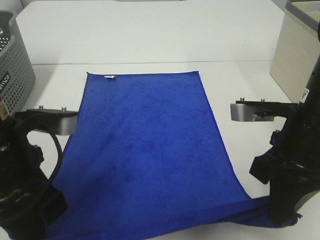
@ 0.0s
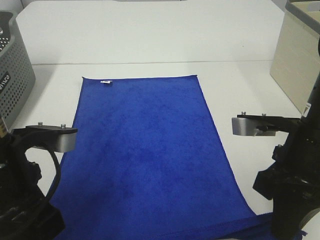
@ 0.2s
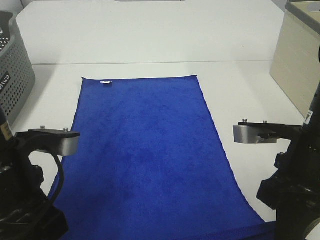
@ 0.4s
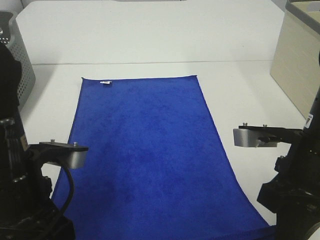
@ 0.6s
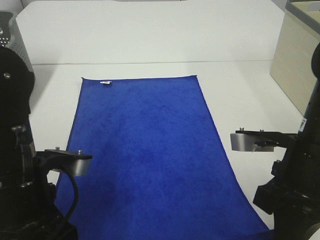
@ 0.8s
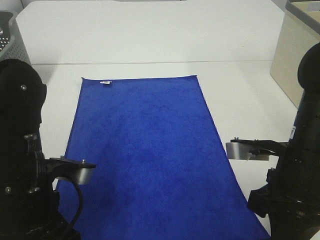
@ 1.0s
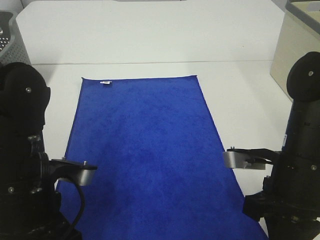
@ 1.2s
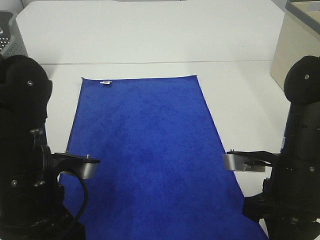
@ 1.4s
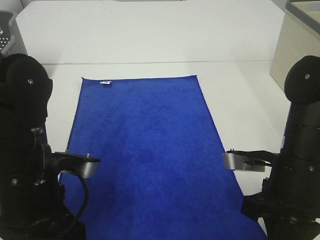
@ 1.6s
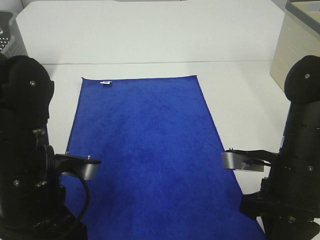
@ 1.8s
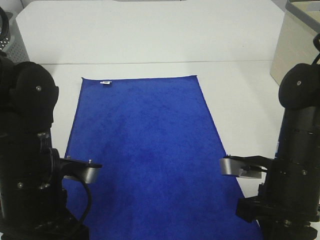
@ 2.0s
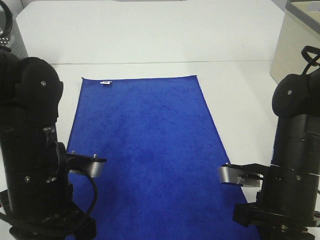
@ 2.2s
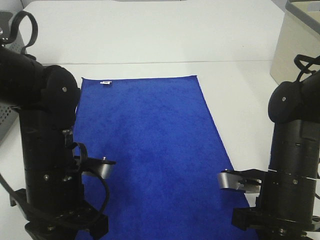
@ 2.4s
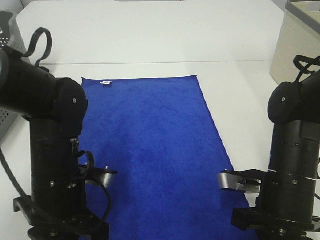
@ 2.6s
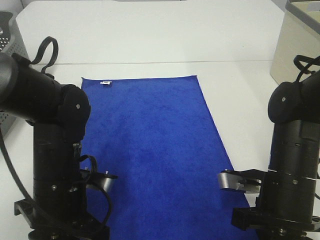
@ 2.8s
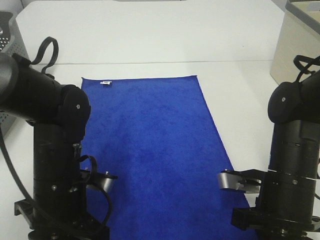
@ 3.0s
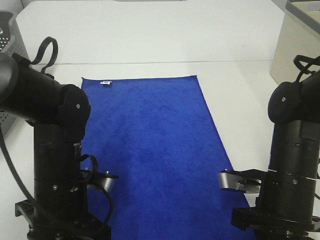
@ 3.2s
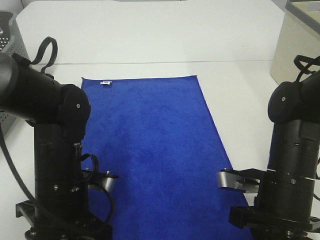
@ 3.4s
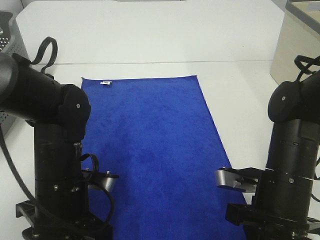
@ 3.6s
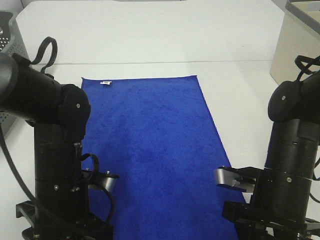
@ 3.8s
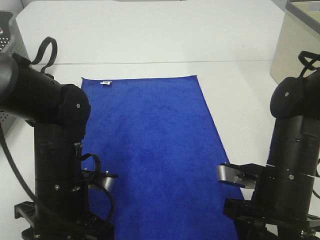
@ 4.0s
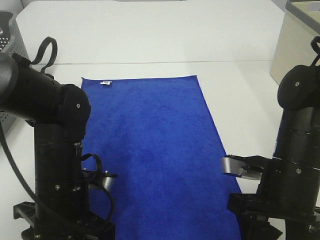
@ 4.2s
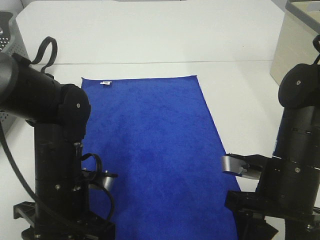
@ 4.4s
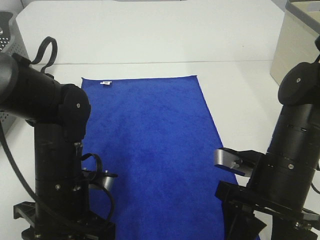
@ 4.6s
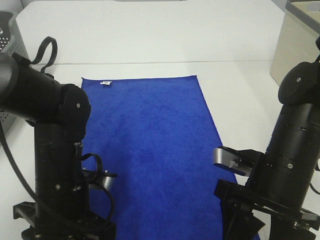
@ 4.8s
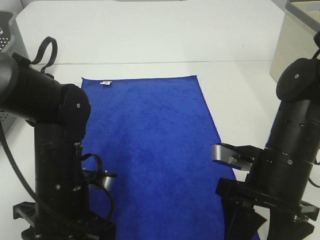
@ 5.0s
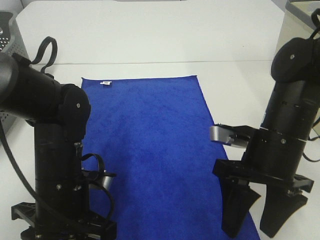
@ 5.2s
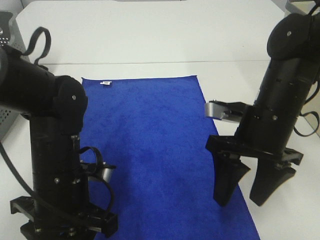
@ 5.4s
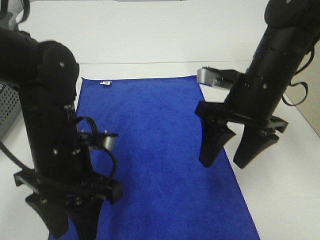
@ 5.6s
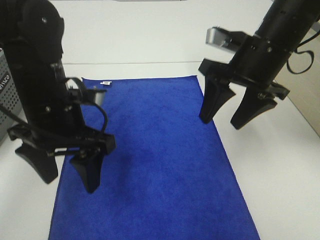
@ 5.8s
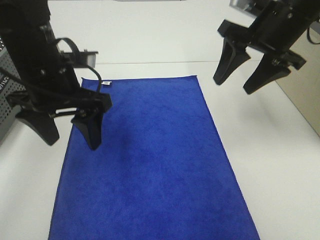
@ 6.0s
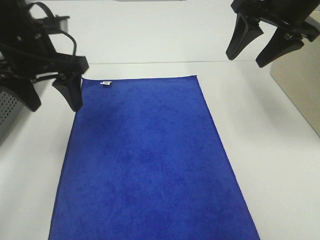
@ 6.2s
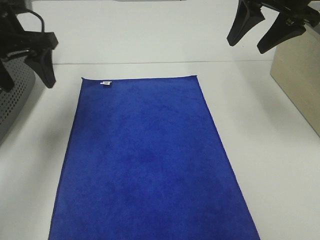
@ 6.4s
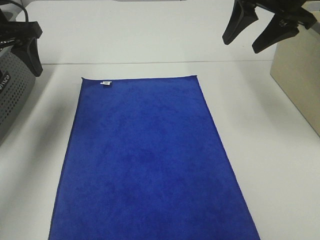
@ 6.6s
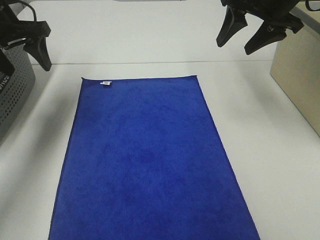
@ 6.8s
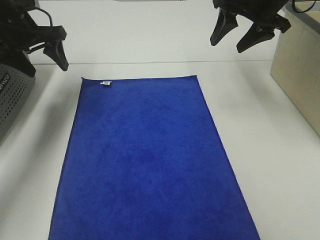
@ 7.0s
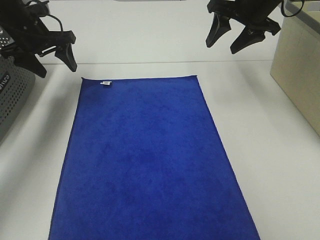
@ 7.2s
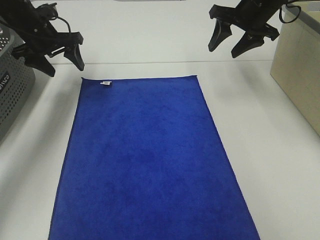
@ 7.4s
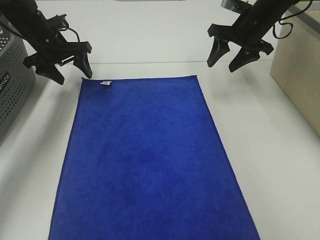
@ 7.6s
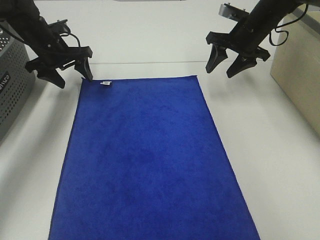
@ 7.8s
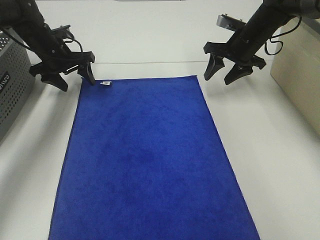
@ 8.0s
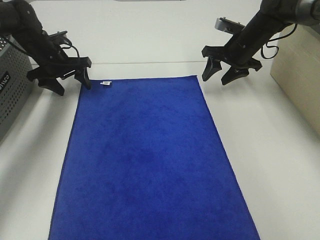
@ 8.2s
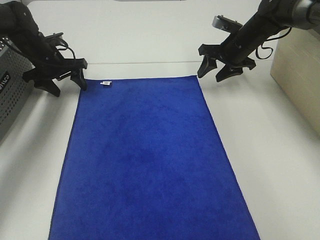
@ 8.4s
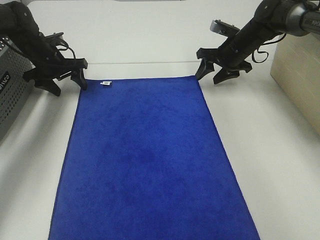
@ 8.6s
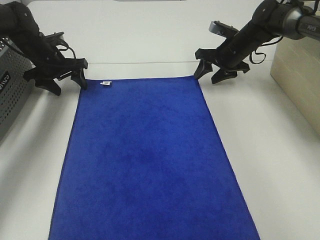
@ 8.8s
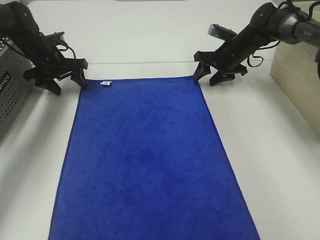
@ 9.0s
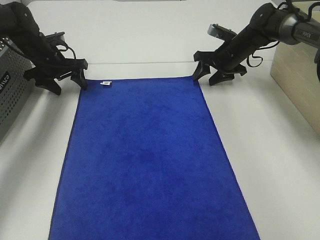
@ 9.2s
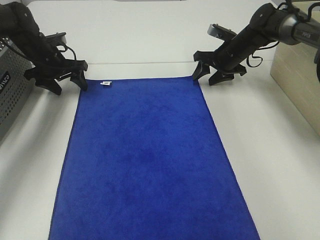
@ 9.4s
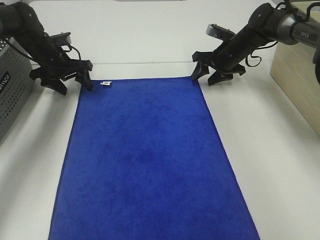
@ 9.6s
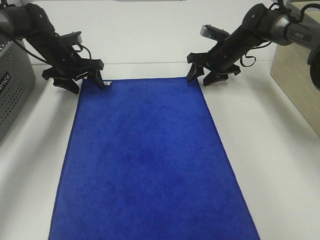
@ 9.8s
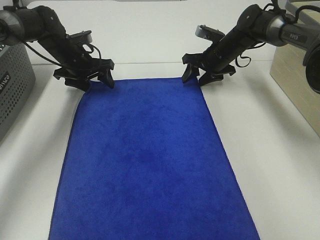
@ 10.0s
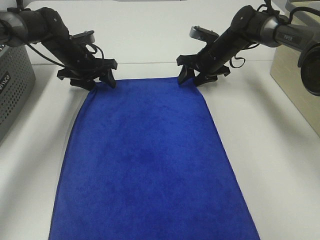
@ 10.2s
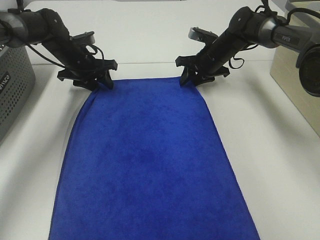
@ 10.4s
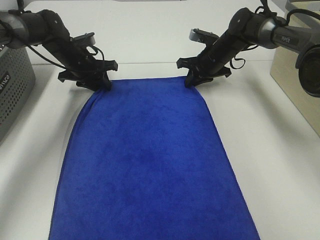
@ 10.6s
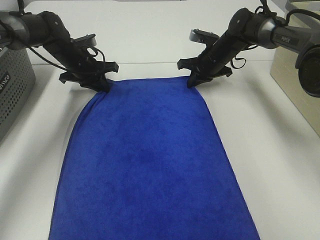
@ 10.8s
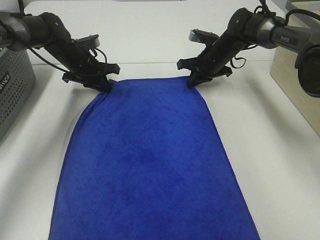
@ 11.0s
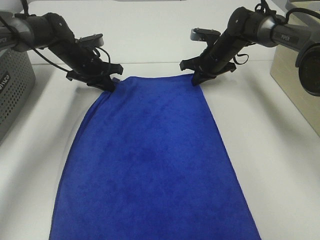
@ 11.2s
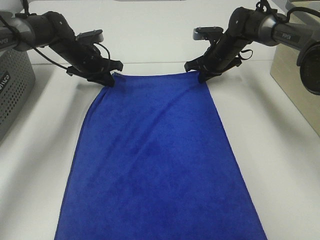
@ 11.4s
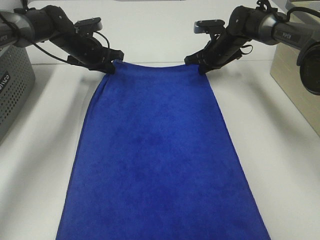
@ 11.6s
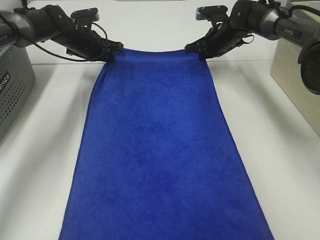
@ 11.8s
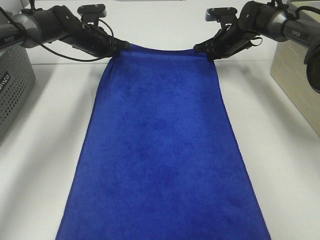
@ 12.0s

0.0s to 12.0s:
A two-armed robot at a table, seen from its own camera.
Task of the whole recording: Remove the towel and place it.
Step, 0.0s to 6.8s: Left hand:adjust the blue towel.
Step, 0.0s to 6.8s: Right hand:adjust the blue towel.
0.0s to 1.6s: The grippers both shift downward by about 5 cm.
1.6s to 3.0s: The left gripper travels downward by roughly 5 cm.
3.0s to 4.4s: The right gripper opens up. Meanwhile the left gripper opens up.
4.4s to 6.0s: The left gripper heads upward and forward, covering roughly 15 cm. Meanwhile the right gripper goes approximately 20 cm forward and upward.
6.0s to 7.6s: The right gripper goes roughly 15 cm forward and downward. Meanwhile the left gripper is displaced forward and to the left by some 25 cm.
7.6s to 9.0s: The right gripper moves downward, roughly 10 cm. Meanwhile the left gripper heads downward, covering approximately 5 cm.
9.0s to 10.4s: The left gripper is displaced to the right by some 5 cm.
10.4s to 12.0s: The right gripper ends up some 5 cm from where it was, and closes up, while the left gripper ends up some 5 cm from where it was, and closes.

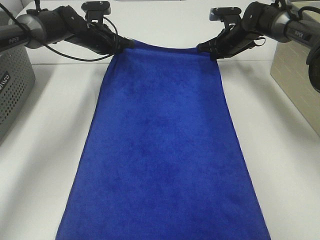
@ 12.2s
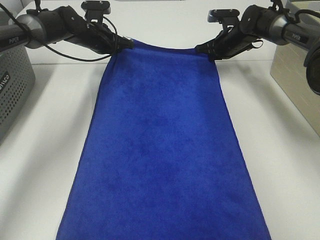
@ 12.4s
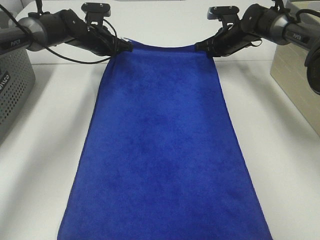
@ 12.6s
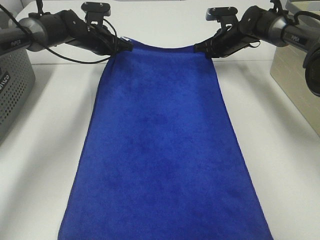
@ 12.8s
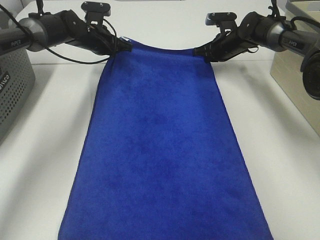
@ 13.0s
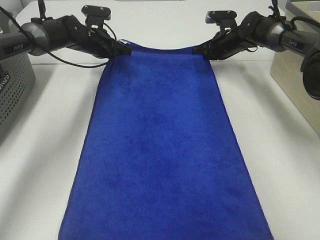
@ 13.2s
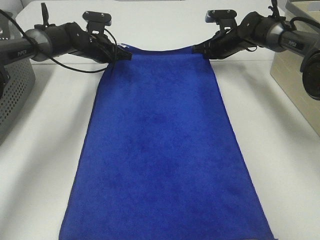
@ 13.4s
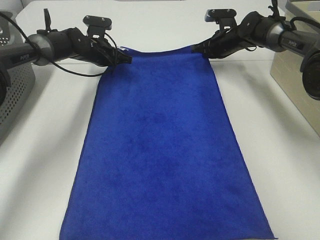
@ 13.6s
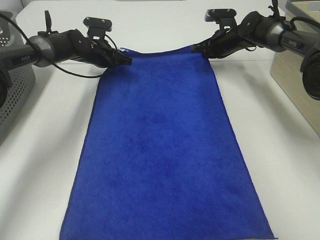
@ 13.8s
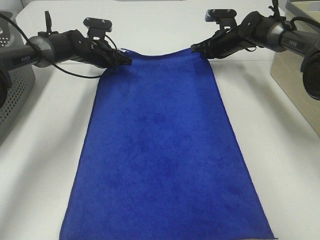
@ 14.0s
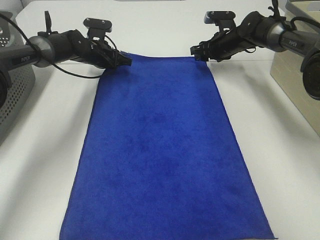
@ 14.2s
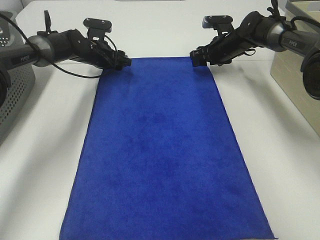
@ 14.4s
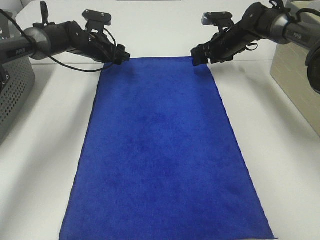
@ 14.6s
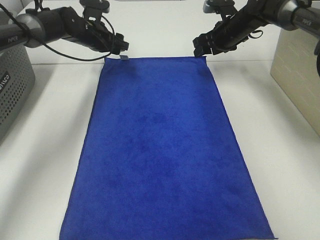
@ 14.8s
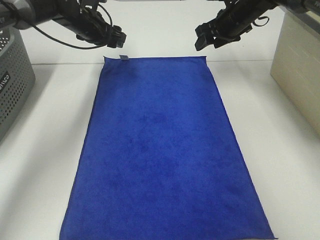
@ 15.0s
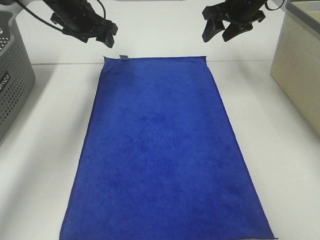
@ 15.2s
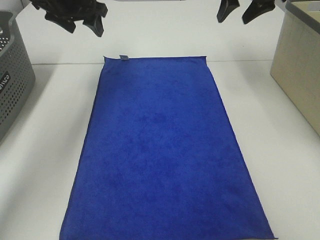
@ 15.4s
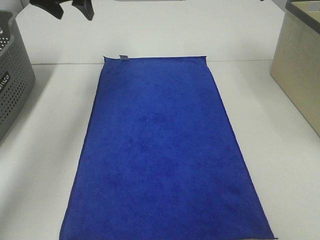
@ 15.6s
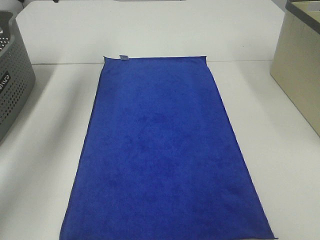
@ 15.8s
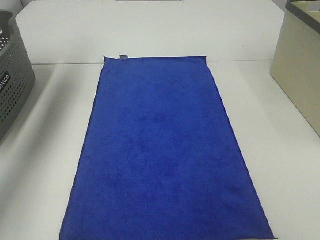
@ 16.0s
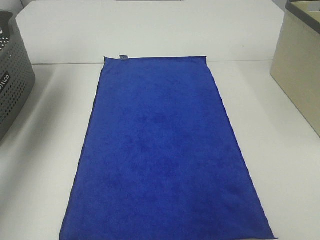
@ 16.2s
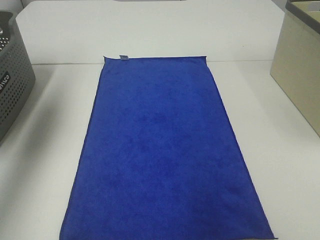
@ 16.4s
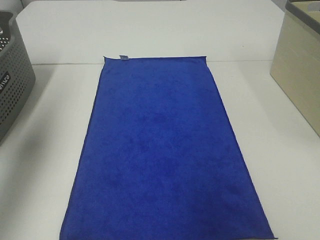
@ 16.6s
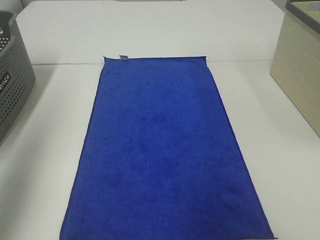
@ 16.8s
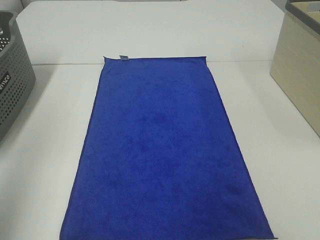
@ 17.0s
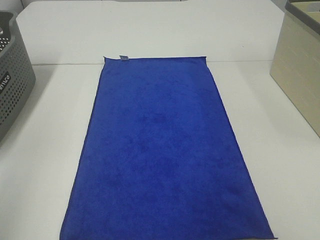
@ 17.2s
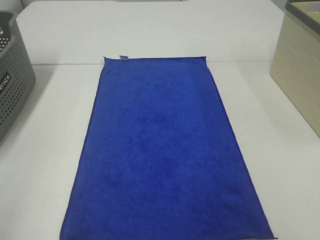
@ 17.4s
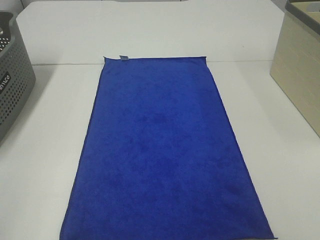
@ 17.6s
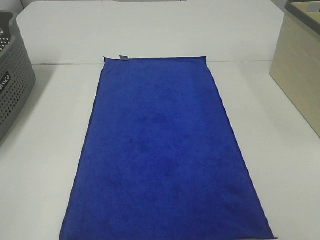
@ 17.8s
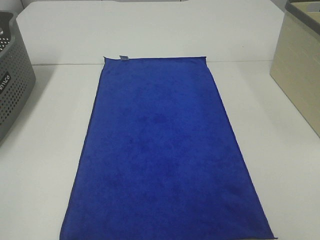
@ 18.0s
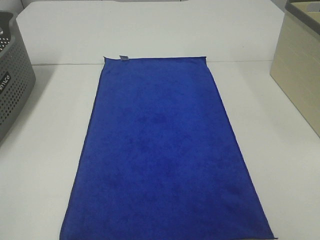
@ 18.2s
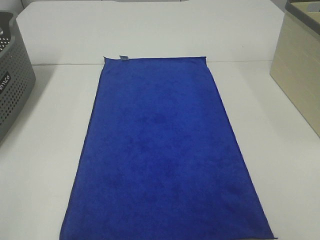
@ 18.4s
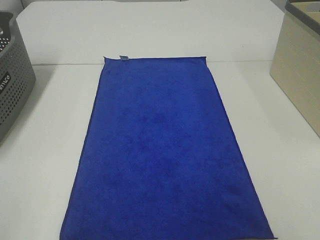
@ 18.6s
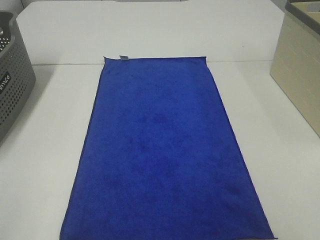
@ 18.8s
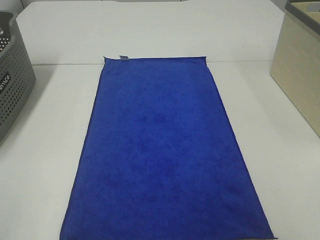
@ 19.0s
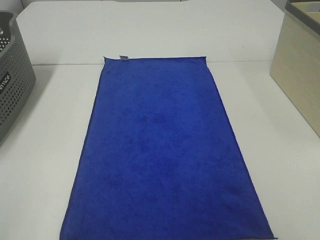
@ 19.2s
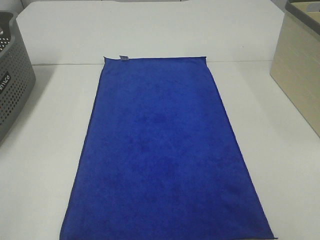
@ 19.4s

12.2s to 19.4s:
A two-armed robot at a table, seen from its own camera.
Task of the whole recording: Remove the towel and place it.
12.2s to 13.6s: There are only small adjustments of the grippers.
13.6s to 15.0s: Both grippers travel together upward, roughly 10 cm. The left gripper opens its fingers; the right gripper opens.
15.0s to 16.6s: The left gripper moves backward, upward and to the left, about 40 cm. Meanwhile the right gripper shifts roughly 40 cm backward and upward.
16.6s to 18.0s: The left gripper goes roughly 30 cm backward.
